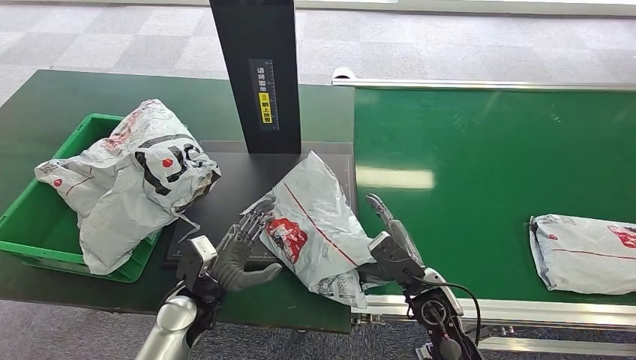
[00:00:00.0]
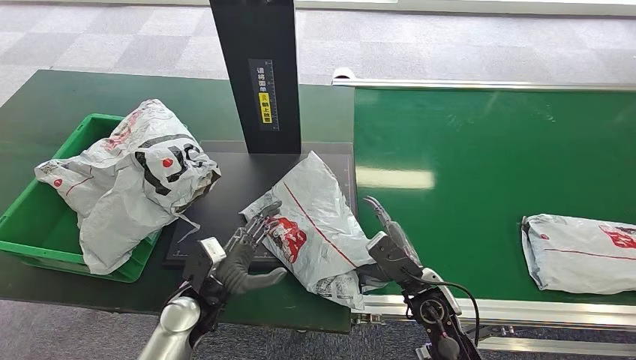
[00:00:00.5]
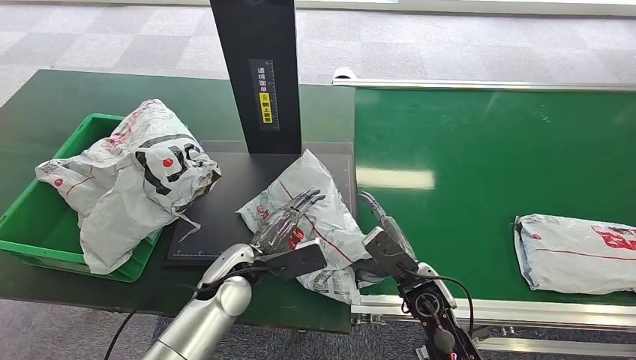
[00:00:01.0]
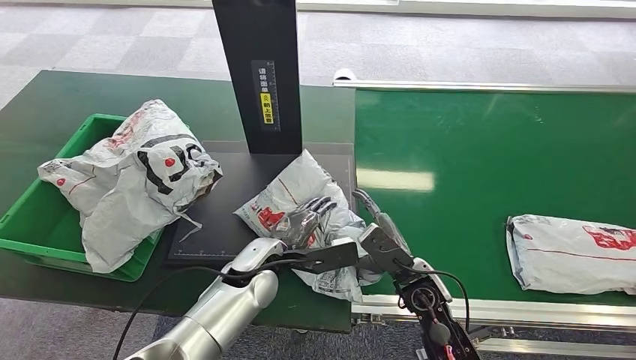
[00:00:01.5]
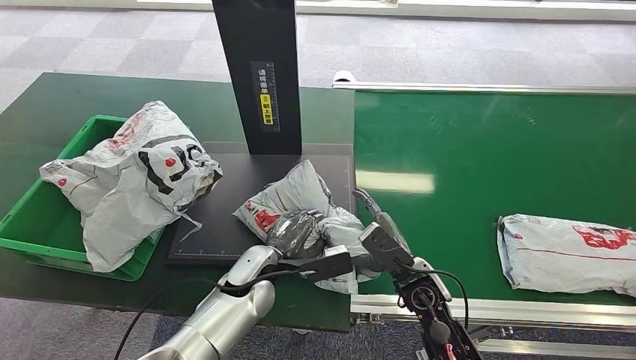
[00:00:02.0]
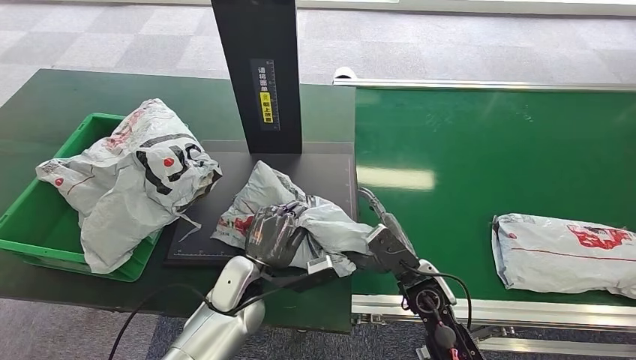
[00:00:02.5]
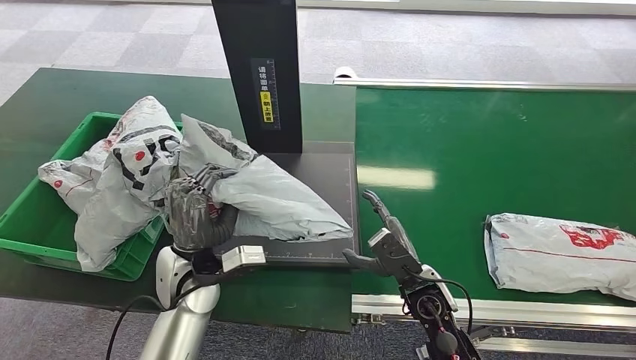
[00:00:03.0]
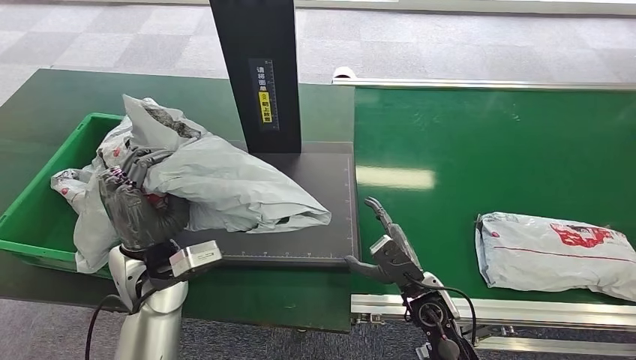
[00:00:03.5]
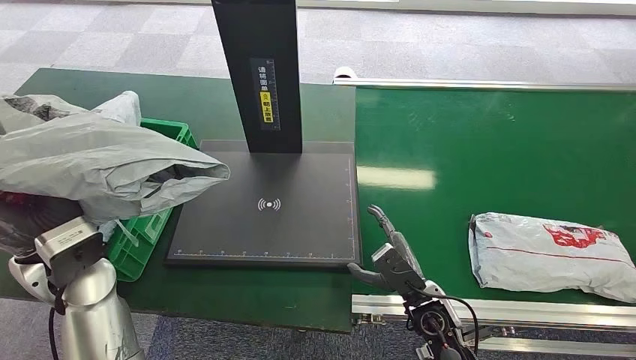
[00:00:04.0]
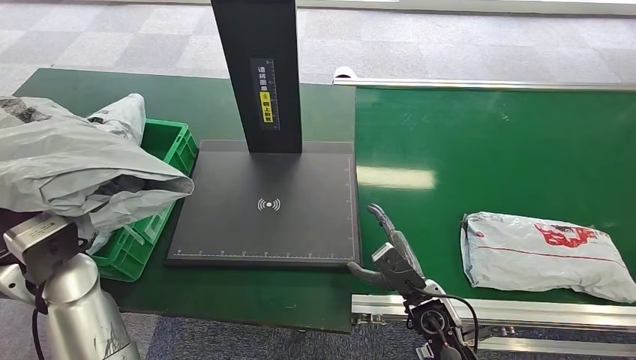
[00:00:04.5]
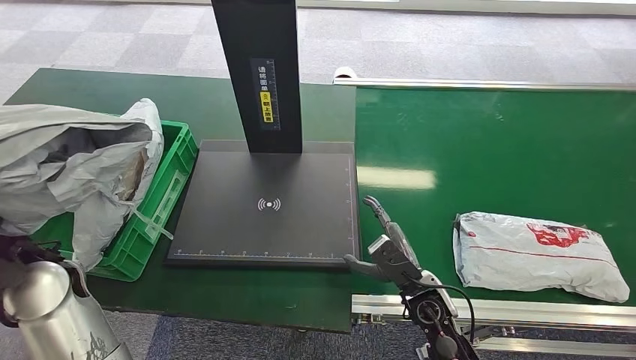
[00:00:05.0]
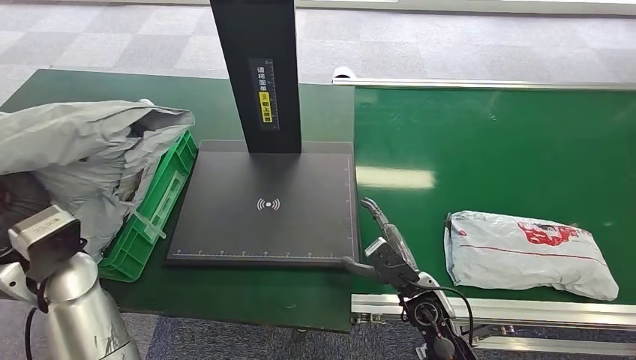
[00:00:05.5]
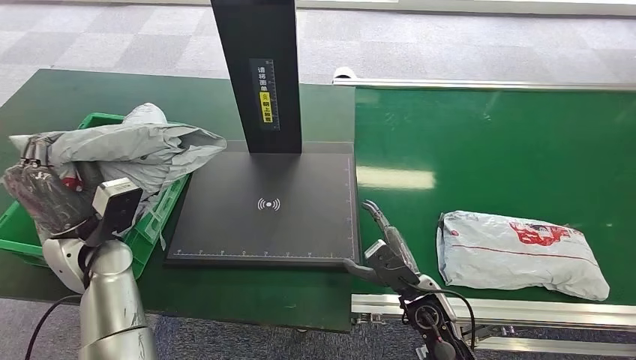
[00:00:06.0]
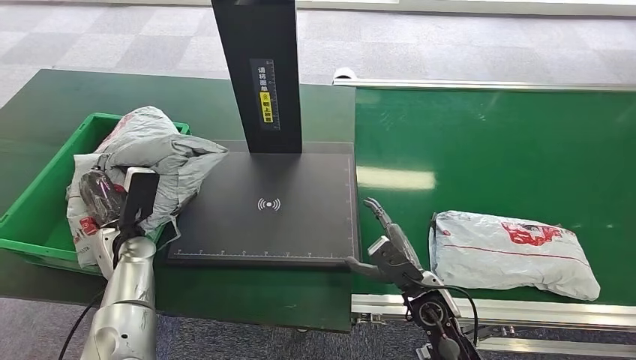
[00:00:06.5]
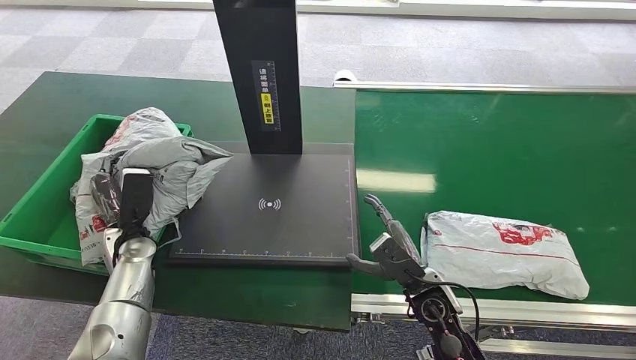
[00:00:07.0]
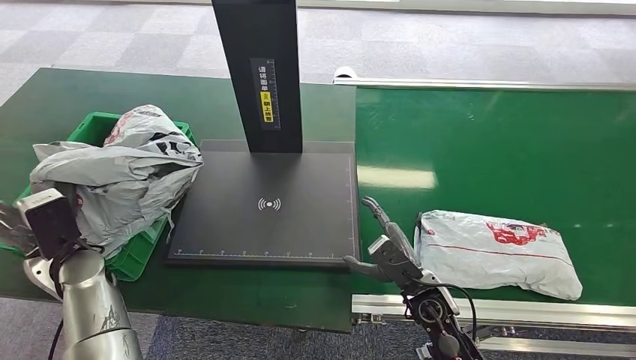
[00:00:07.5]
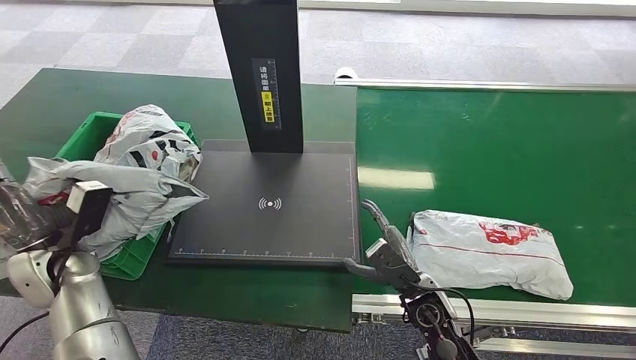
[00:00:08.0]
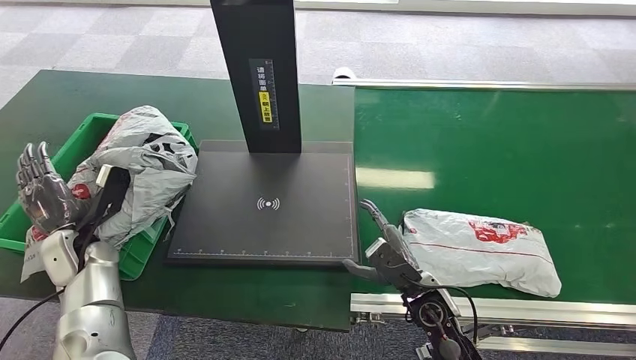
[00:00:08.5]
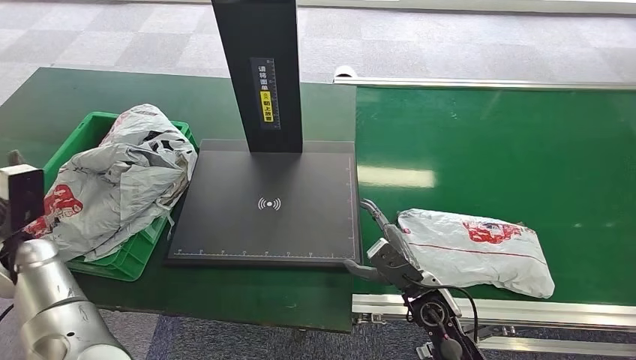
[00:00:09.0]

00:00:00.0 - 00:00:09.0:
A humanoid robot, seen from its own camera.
Step, 00:00:00.5 - 00:00:03.0: Pick up the package from the inbound machine.
Step, 00:00:03.5 - 00:00:09.0: Place the package into the parcel locker.
